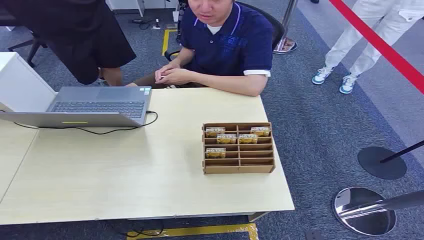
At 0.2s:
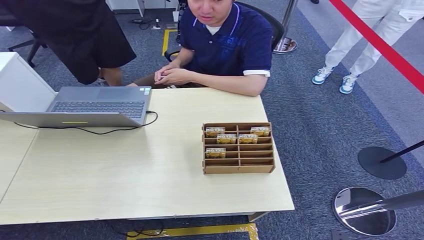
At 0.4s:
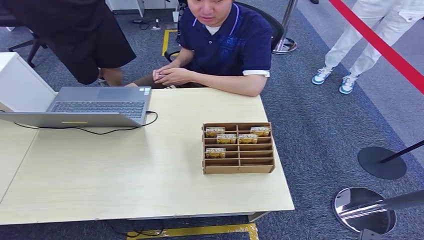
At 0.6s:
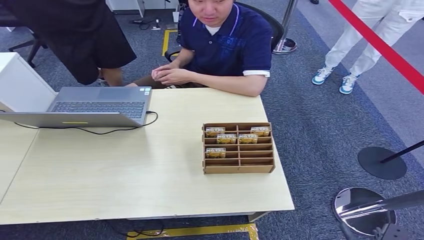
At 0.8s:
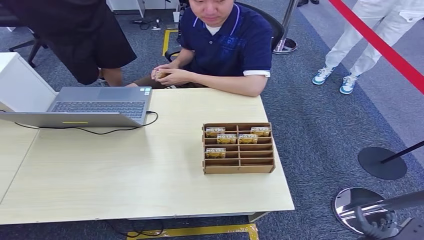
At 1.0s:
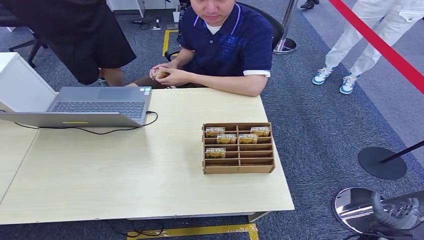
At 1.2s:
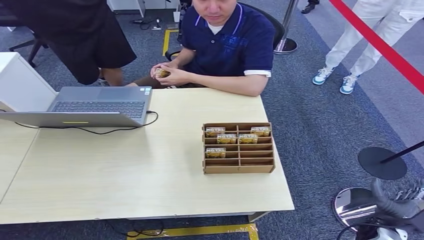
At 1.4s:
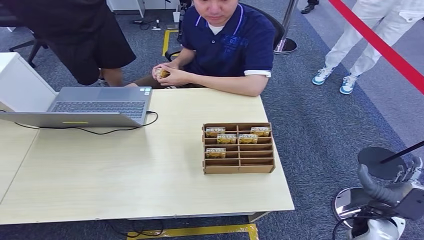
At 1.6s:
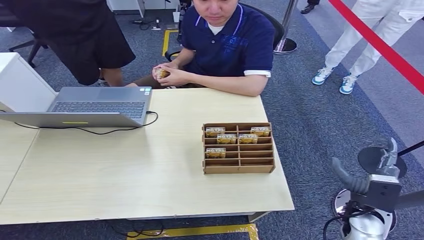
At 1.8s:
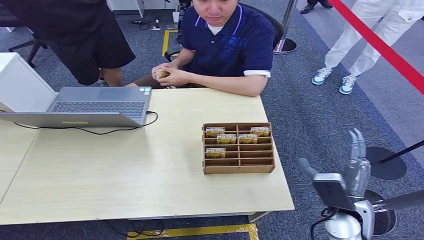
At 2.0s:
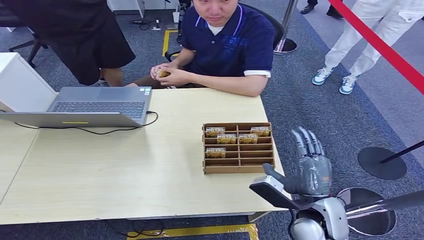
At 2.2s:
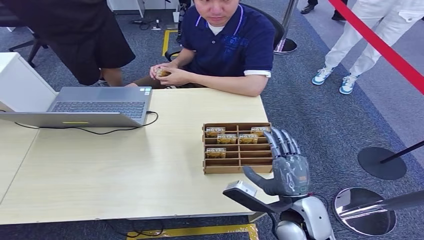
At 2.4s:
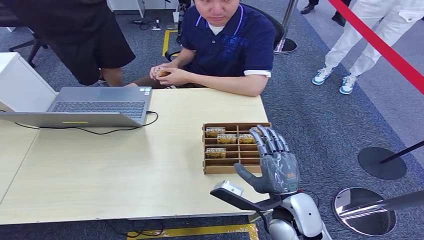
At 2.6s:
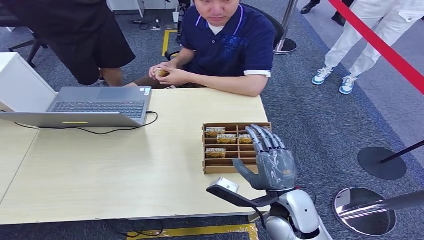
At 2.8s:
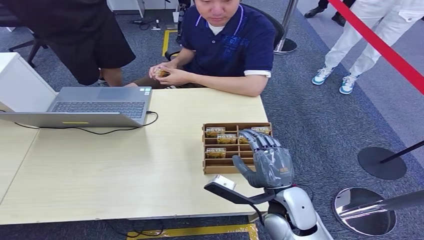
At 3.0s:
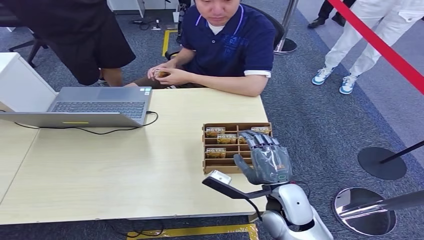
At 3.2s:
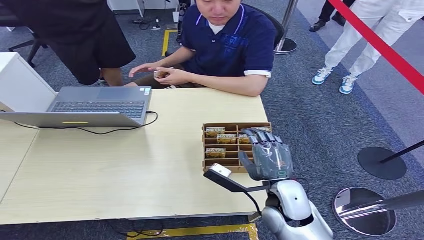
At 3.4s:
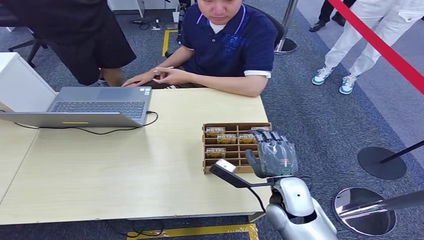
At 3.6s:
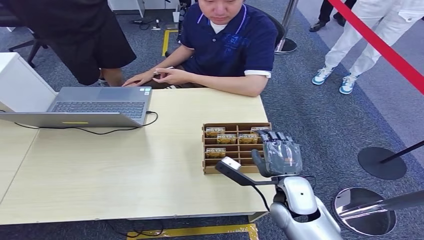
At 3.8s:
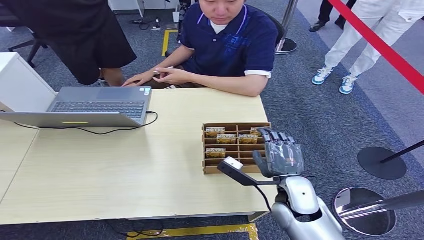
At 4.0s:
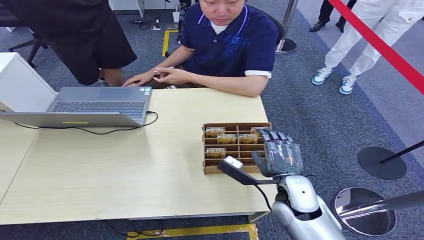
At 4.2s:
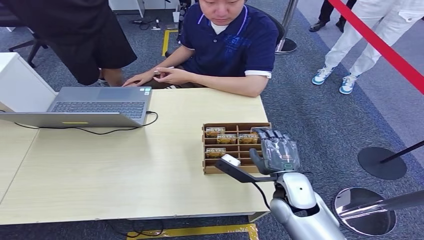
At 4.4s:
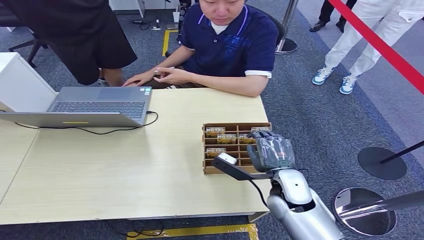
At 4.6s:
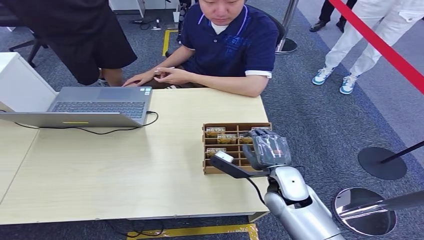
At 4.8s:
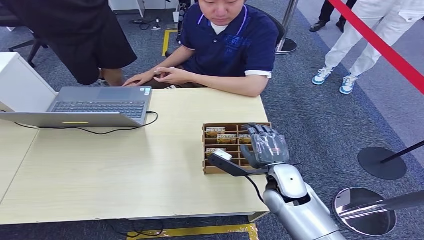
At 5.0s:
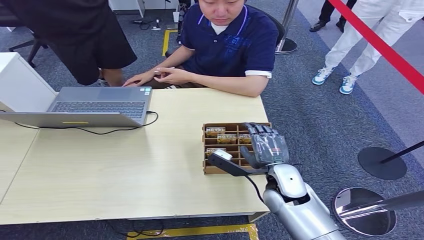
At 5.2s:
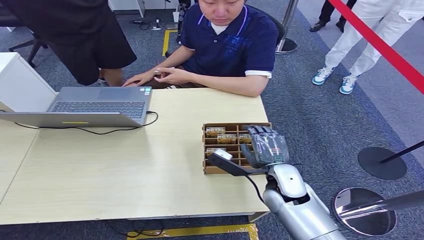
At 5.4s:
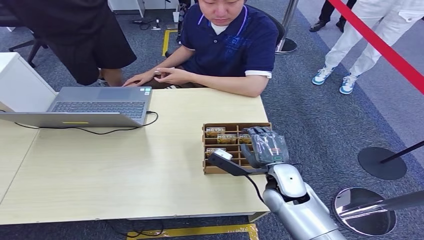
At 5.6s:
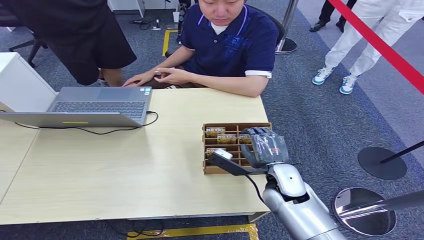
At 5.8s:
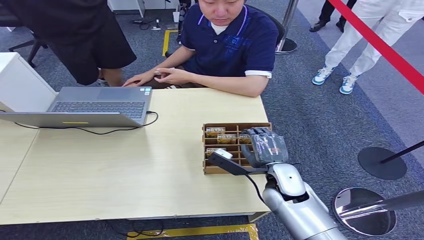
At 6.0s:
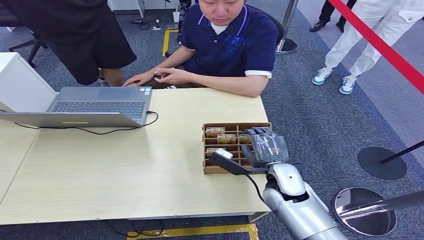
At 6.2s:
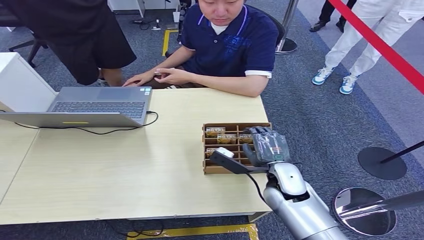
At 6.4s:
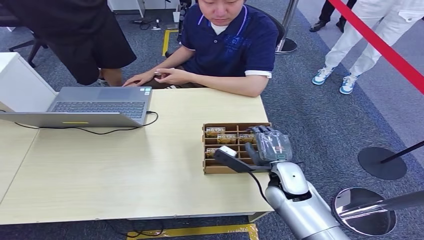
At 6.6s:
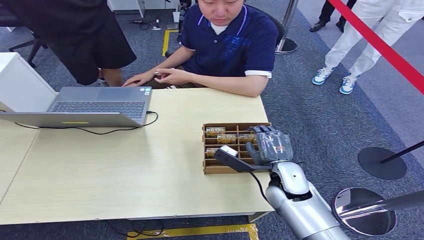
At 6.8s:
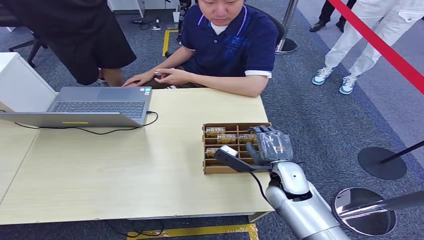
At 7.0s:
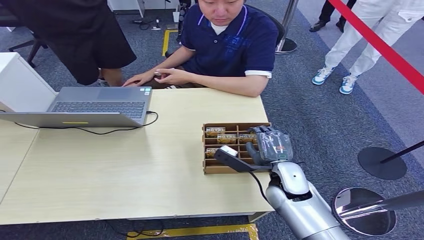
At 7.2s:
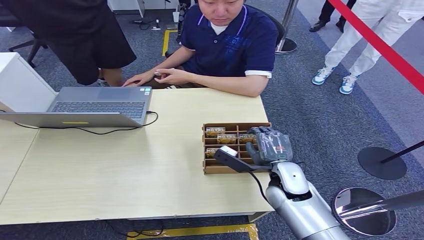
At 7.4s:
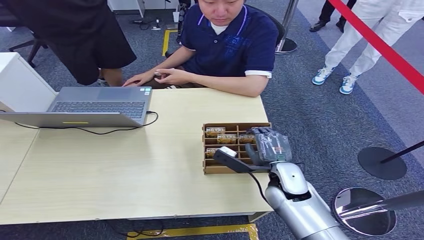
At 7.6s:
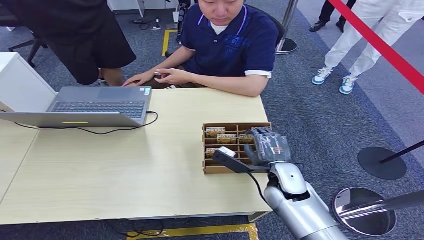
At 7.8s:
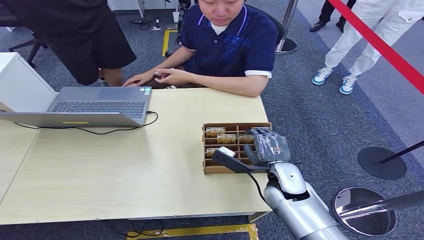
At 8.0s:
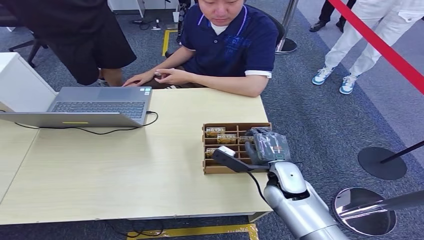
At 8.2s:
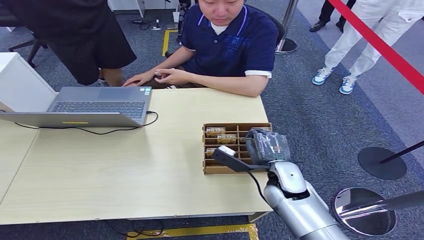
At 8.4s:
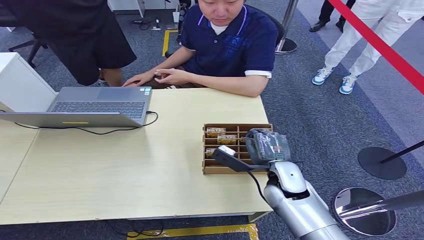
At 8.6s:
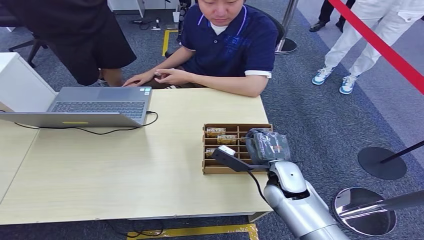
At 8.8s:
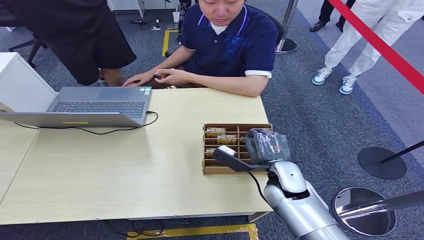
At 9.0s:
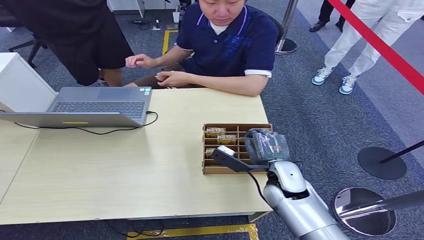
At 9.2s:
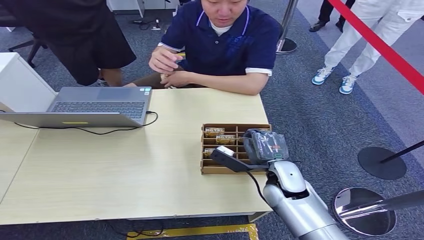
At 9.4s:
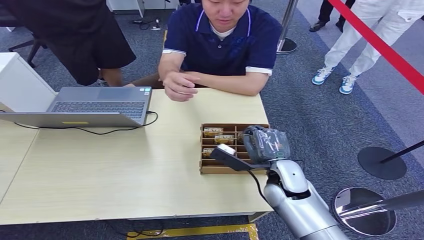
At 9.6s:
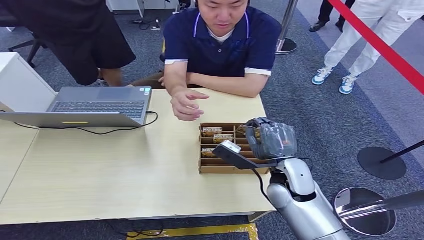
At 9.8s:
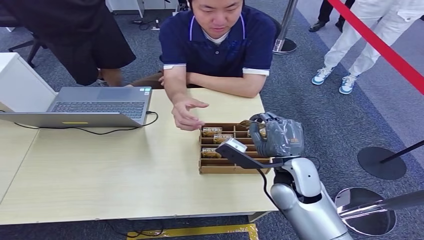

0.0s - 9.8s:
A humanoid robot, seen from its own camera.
Task of the whole recording: Pick up the card and hand it over to the target person.
Step, 0.0s - 9.2s: Pick up the key card from the card box.
1.4s - 2.8s: The right hand shifts roughly 15 cm to the left.
2.8s - 4.2s: The hands move only a little.
4.2s - 5.6s: The hands stay close to where they were, moving slightly.
5.6s - 8.4s: The two hands keep their place.
8.4s - 9.8s: The right hand goes approximately 10 cm upward.

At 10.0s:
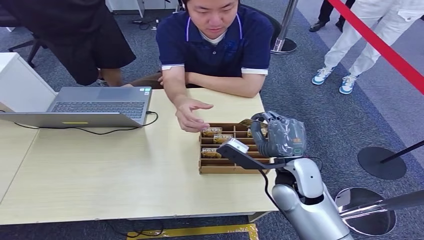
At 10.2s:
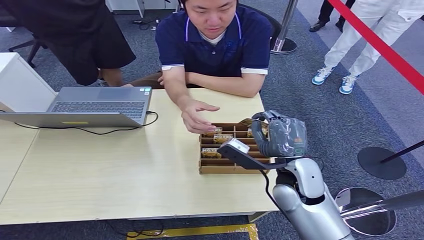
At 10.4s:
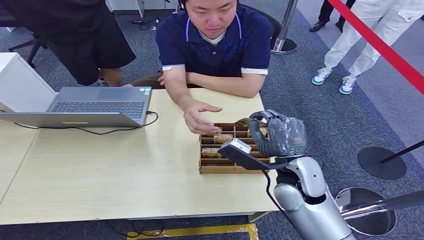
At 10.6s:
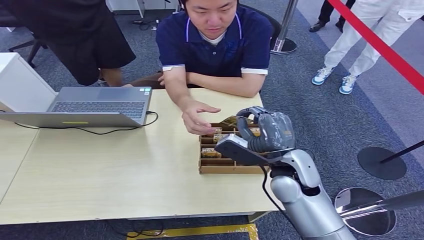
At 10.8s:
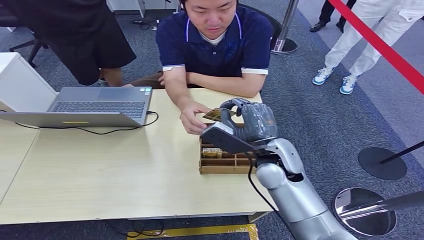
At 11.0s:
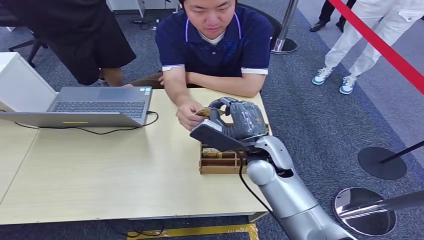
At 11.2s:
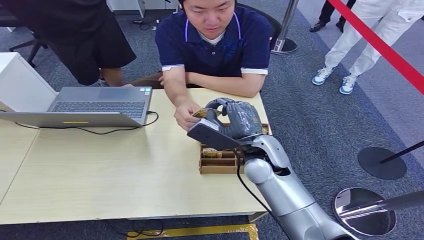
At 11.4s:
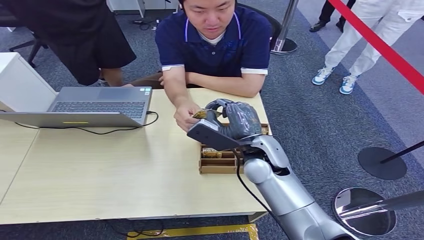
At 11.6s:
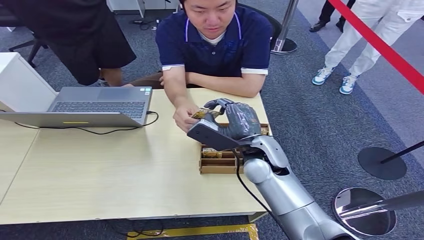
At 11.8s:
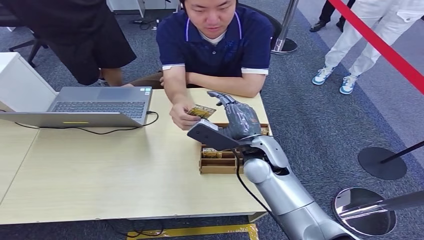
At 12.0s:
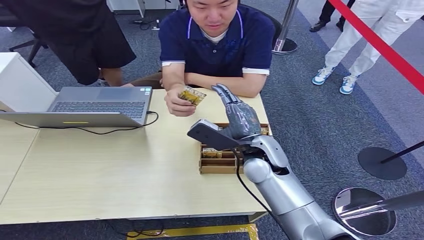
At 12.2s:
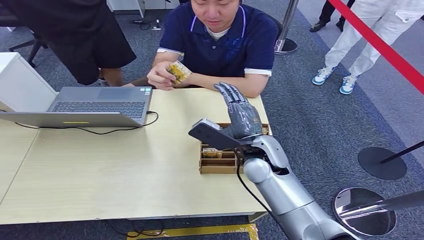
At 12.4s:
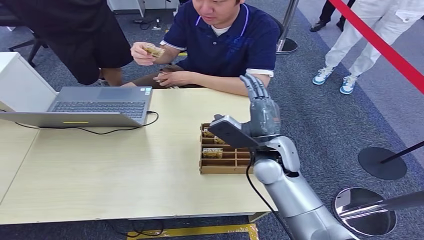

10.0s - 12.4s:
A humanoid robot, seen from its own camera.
Task of the whole recording: Pick up the card and hand it over to the target person.
Step, 10.0s - 12.4s: Hand the key card to the target.
10.0s - 11.2s: The right hand goes some 10 cm to the left and forward.
11.2s - 12.4s: The right hand goes approximately 10 cm to the right.

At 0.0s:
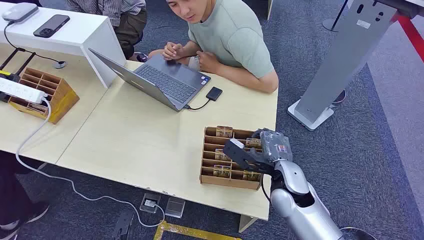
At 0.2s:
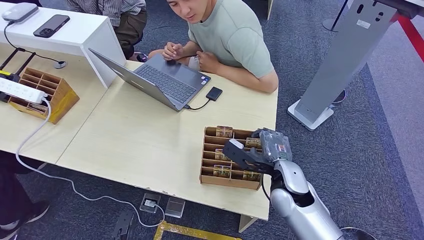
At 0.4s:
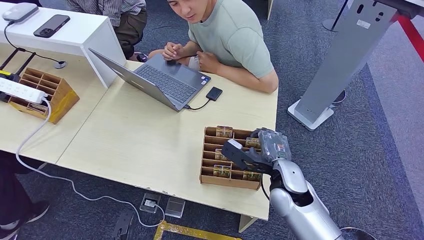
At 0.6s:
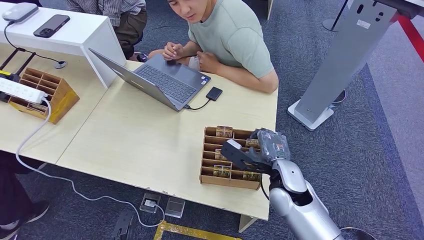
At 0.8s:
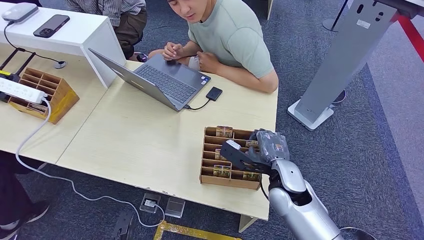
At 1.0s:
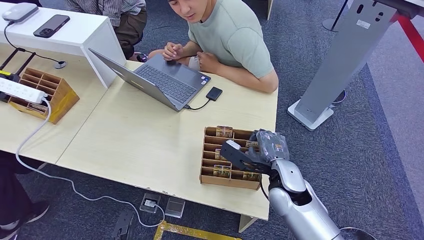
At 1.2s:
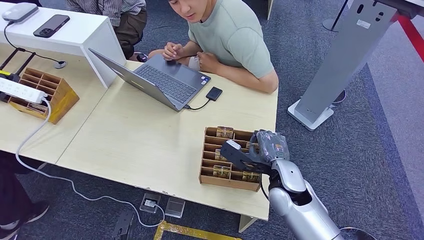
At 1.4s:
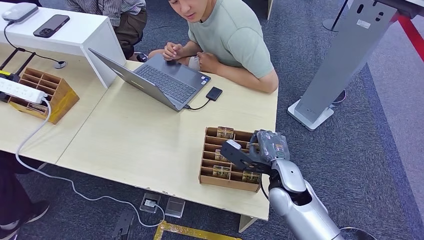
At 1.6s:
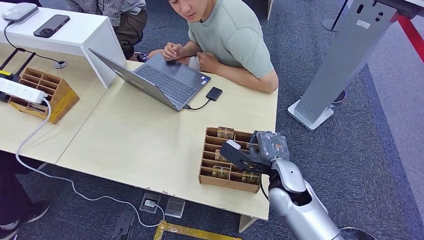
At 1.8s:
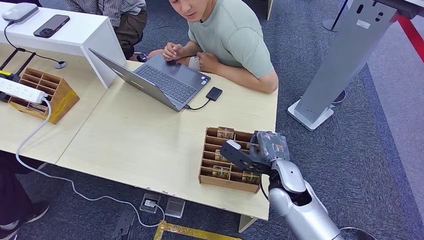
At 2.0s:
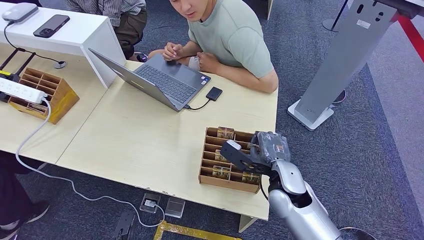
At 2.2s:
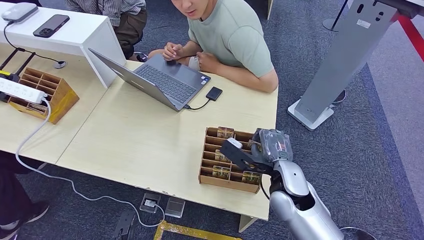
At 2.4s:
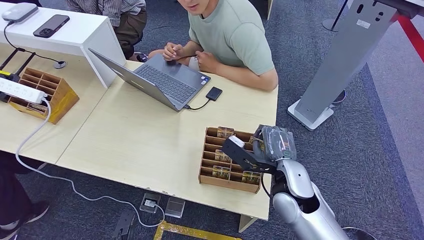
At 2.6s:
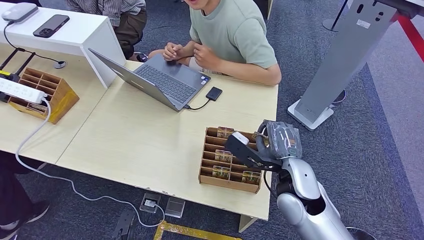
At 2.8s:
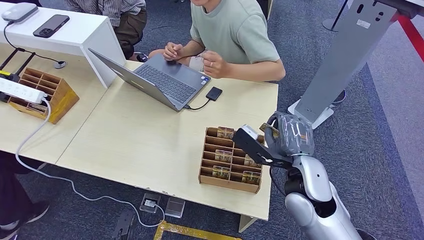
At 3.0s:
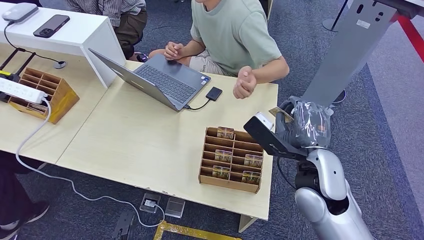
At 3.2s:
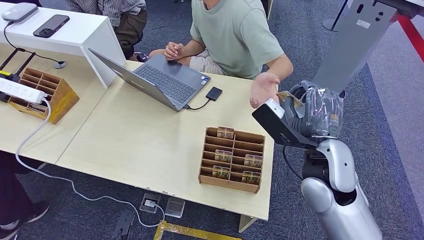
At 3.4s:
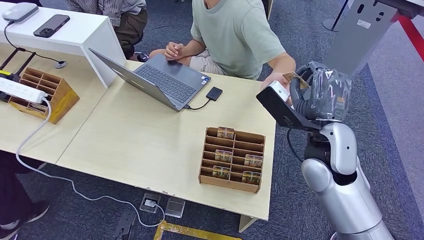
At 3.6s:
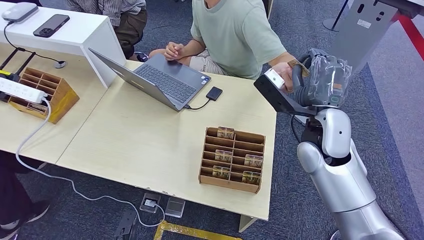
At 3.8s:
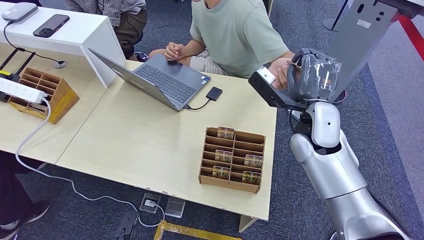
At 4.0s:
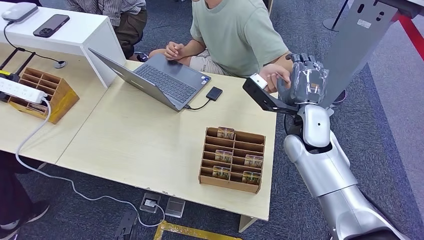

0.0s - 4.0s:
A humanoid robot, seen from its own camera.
Task of the whole recording: Pick up the card and hand it over to the target person.
Step, 0.0s - 2.4s: Pick up the key card from the card box.
Step, 3.2s - 4.0s: Hand the key card to the target.
1.4s - 2.6s: The right hand is displaced upward by approximately 10 cm.
2.6s - 4.0s: The right hand is displaced forward by approximately 10 cm.
